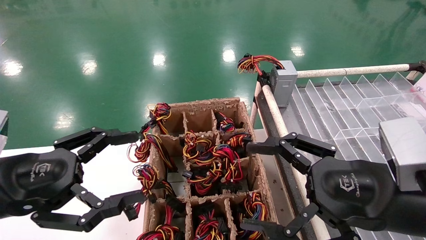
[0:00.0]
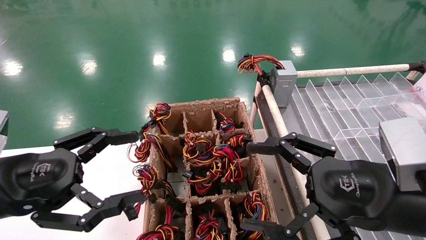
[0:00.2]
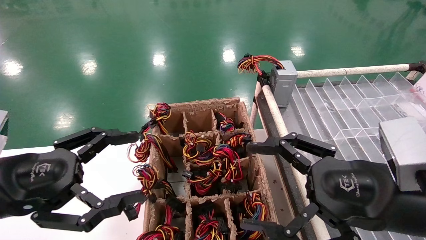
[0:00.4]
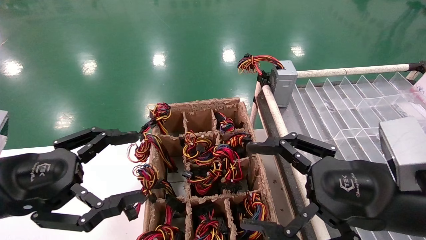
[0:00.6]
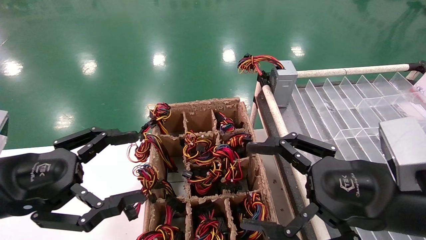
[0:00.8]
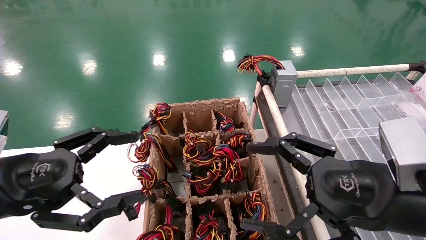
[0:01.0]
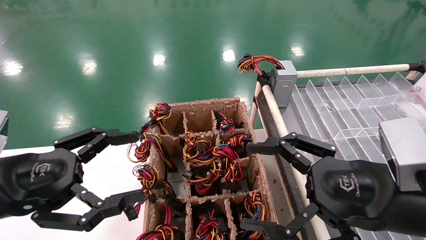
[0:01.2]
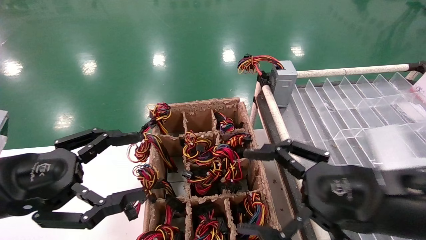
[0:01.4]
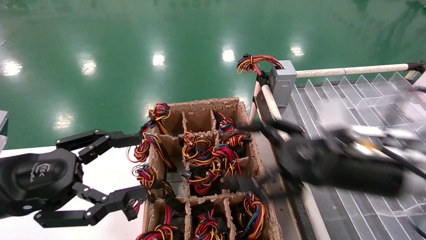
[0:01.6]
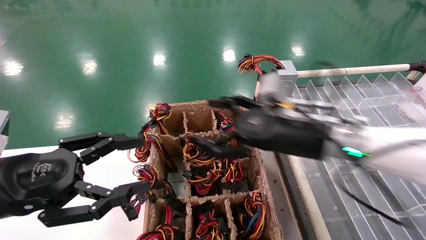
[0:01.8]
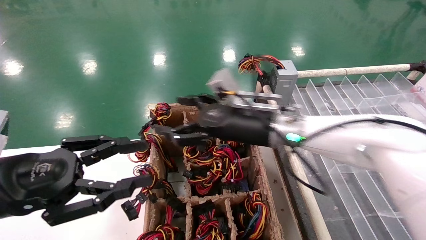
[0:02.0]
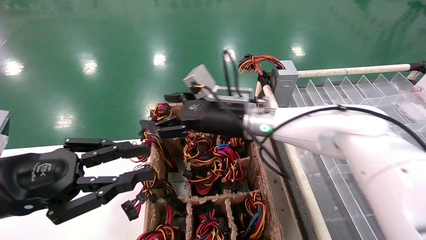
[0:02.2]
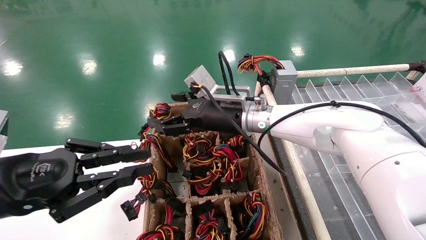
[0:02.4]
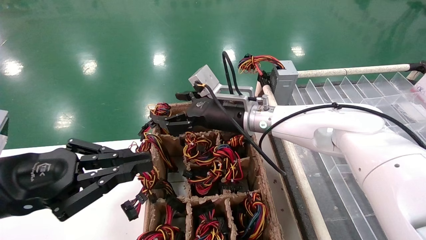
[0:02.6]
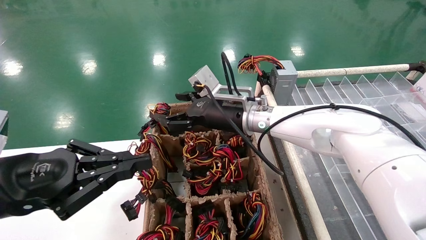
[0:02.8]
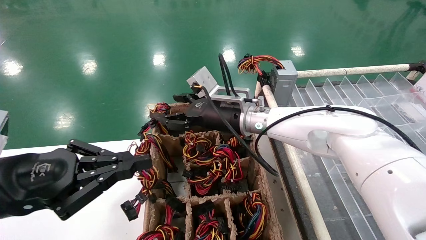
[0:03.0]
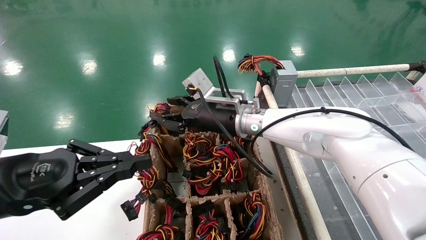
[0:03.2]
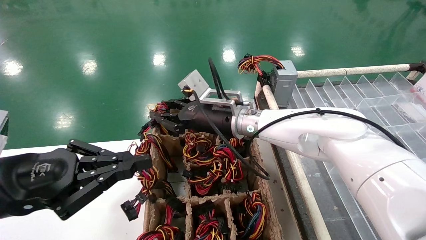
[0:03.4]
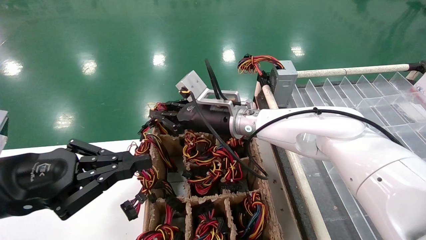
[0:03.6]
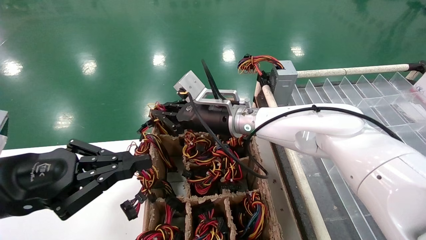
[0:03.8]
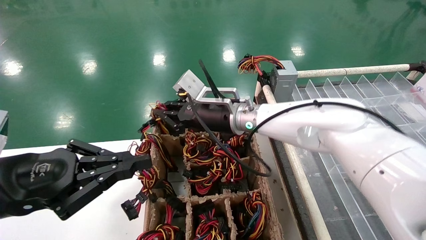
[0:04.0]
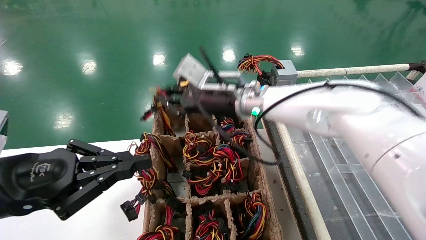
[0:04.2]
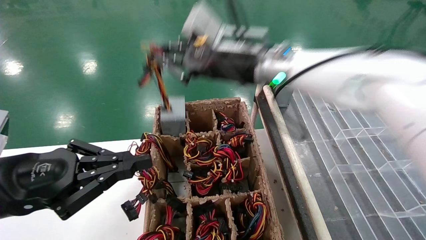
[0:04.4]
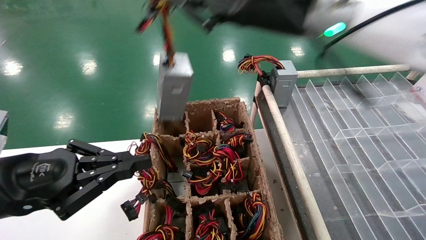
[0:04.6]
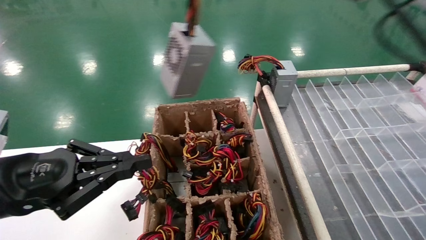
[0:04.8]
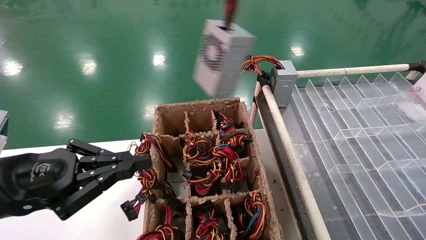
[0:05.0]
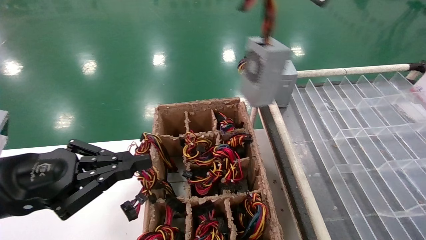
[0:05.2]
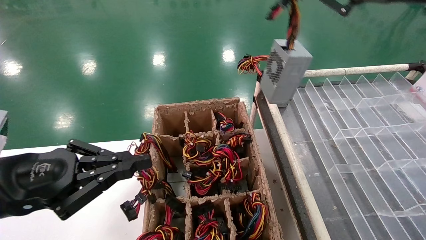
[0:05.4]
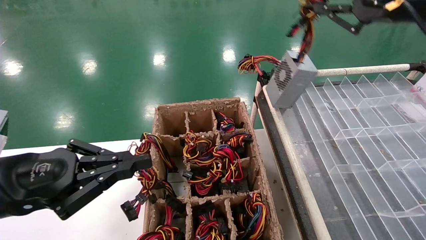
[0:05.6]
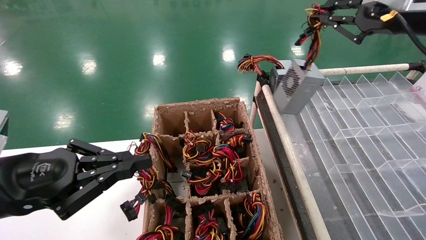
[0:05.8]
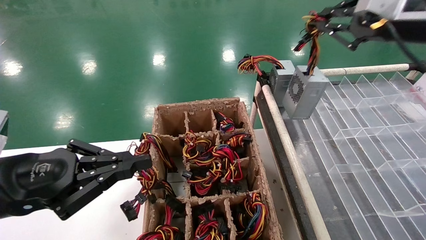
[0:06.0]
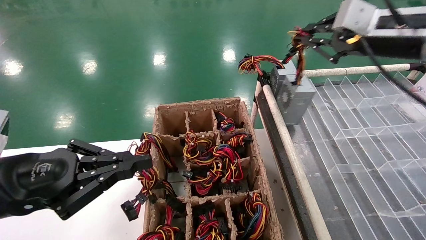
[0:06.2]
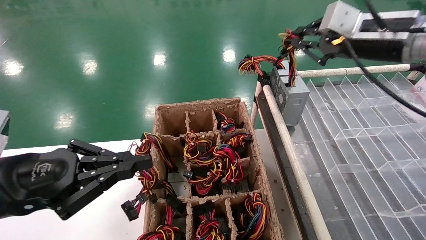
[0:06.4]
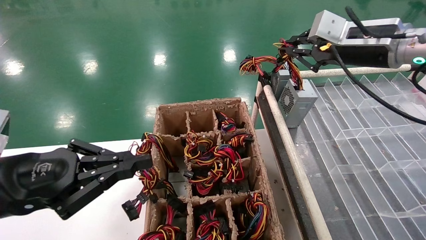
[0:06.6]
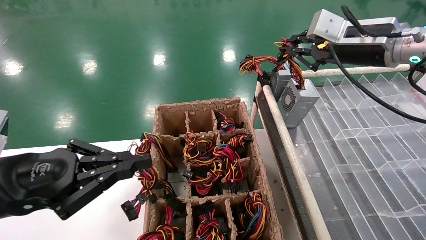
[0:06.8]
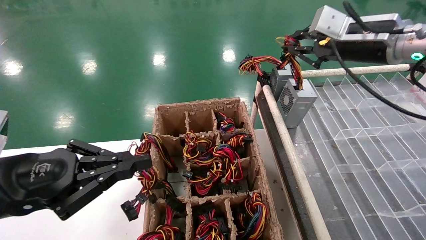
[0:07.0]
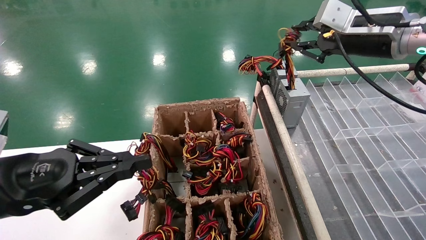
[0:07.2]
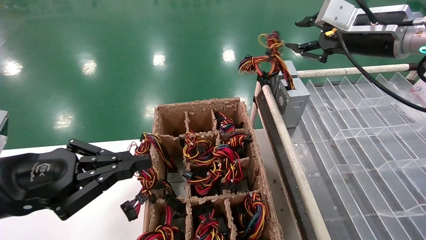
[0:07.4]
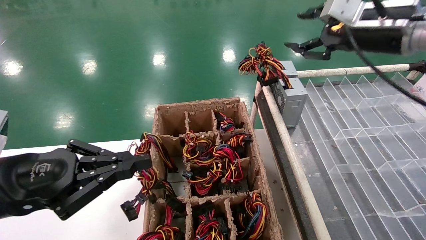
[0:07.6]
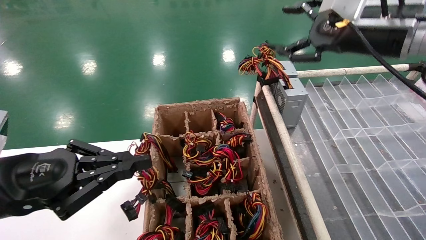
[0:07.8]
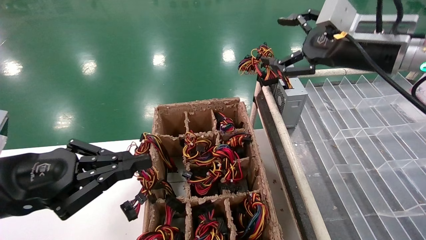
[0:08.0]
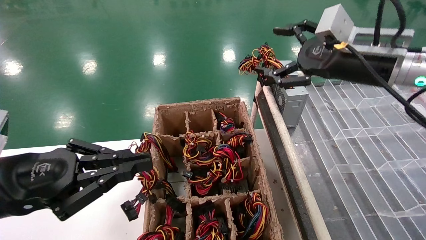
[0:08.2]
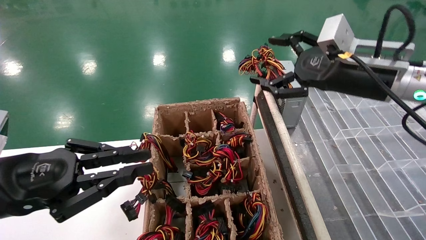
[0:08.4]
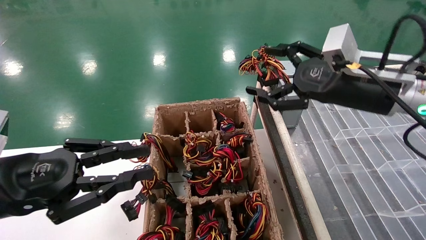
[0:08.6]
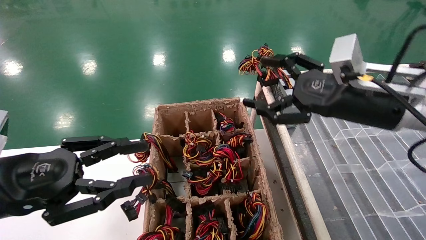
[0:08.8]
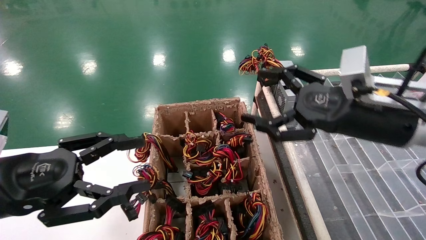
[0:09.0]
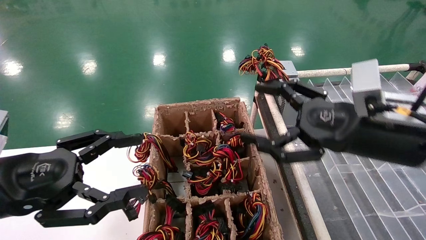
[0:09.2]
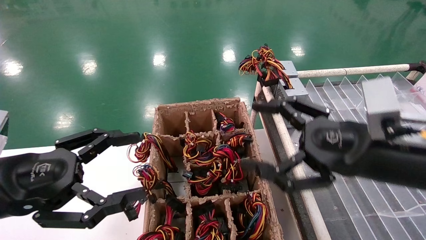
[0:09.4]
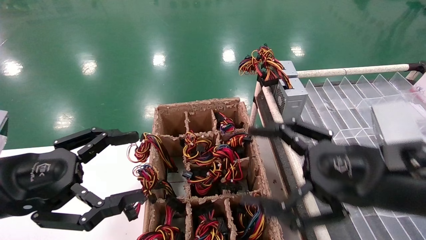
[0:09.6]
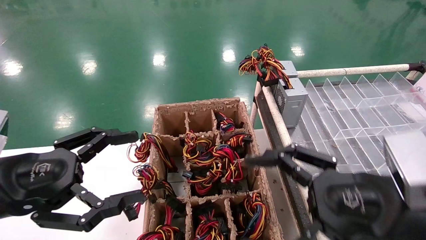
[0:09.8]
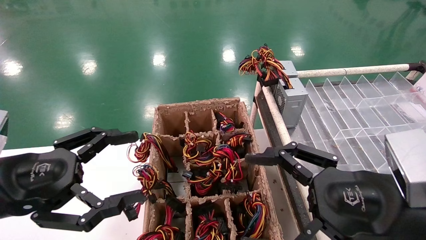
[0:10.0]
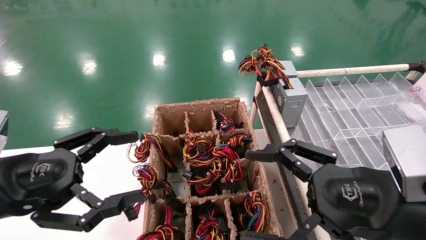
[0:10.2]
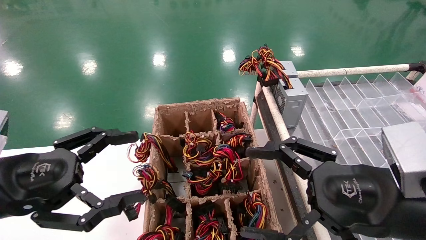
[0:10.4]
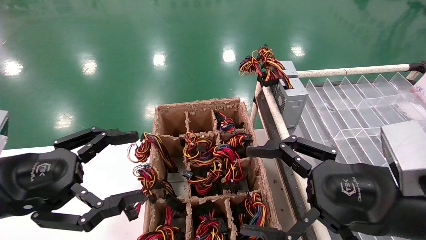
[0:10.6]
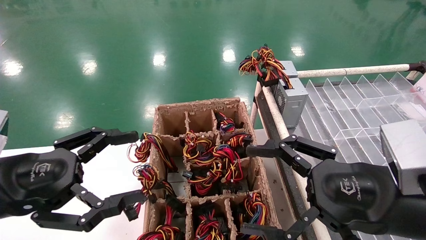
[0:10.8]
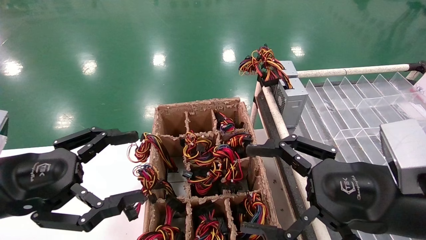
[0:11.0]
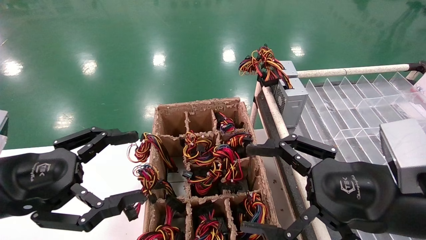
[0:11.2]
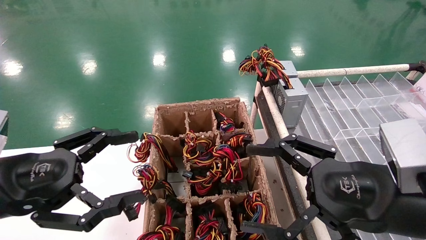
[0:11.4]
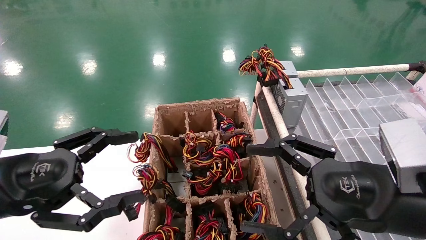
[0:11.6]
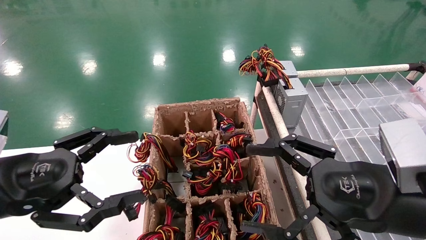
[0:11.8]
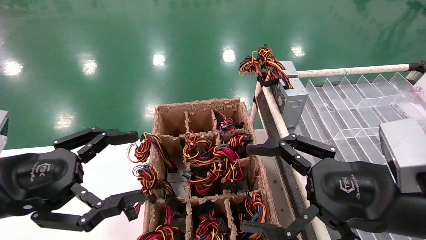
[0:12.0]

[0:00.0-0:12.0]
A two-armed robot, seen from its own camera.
Step, 0:01.8 to 0:04.0: Grab the main unit power supply from the containment box.
Step, 0:04.2 to 0:07.6: Place the main unit power supply in the designated area.
0:00.0 to 0:01.6: The right gripper moves forward, approximately 10 cm.
0:01.6 to 0:03.0: The right gripper heads to the left and forward, covering some 20 cm. The left gripper closes.
0:03.0 to 0:04.4: The right gripper shifts approximately 15 cm upward and backward, and closes up.
0:04.4 to 0:06.0: The right gripper is displaced to the right by roughly 25 cm.
0:06.0 to 0:07.6: The right gripper opens its fingers.
0:07.6 to 0:09.0: The left gripper opens. Meanwhile the right gripper moves downward and backward, roughly 15 cm, and opens its fingers.
0:09.0 to 0:10.4: The right gripper travels backward and downward by some 10 cm; the left gripper opens up.
0:10.4 to 0:12.0: Both grippers stay about where they are.

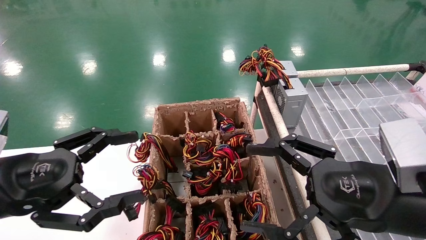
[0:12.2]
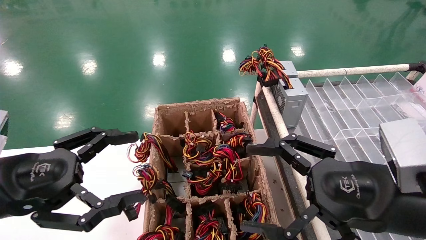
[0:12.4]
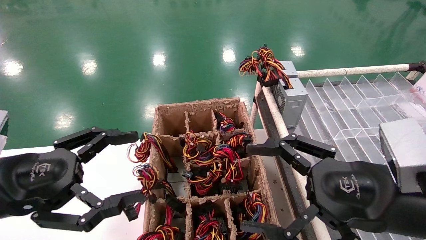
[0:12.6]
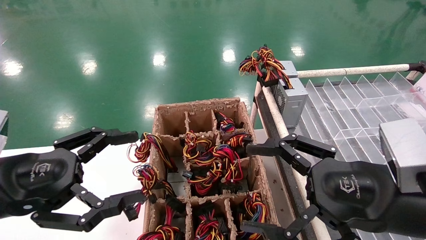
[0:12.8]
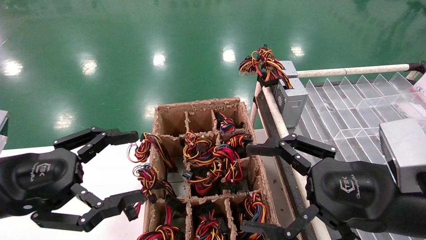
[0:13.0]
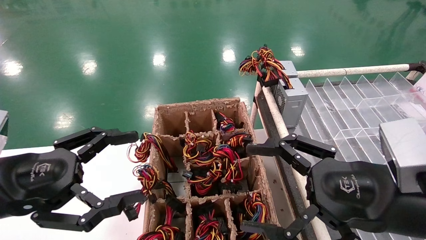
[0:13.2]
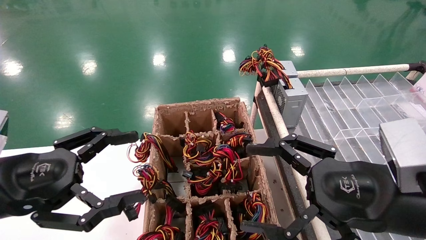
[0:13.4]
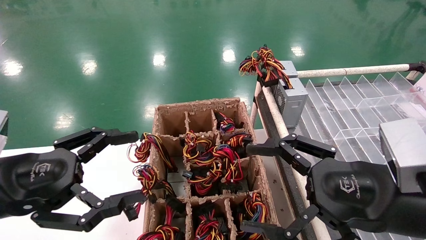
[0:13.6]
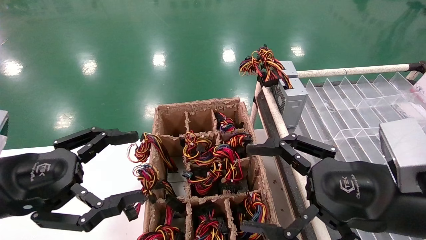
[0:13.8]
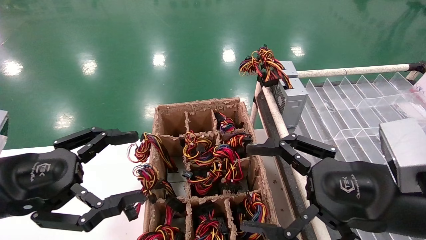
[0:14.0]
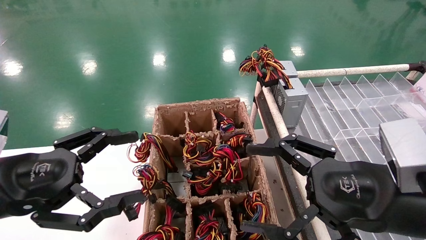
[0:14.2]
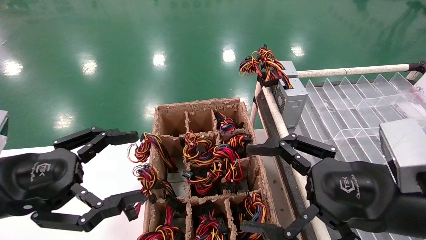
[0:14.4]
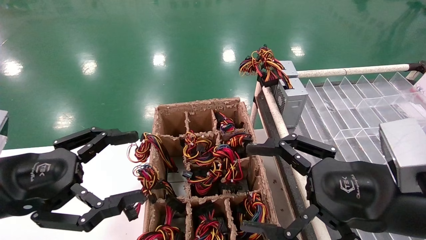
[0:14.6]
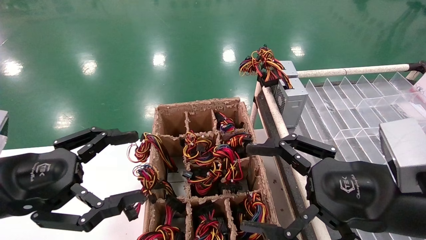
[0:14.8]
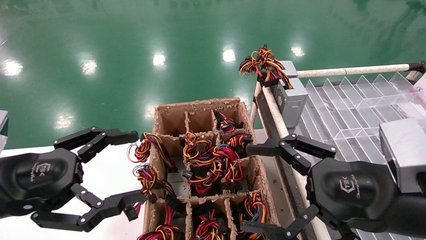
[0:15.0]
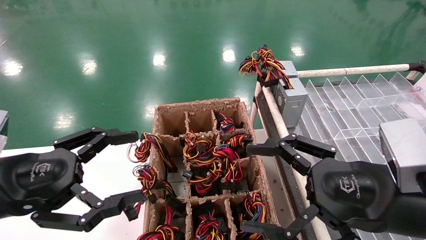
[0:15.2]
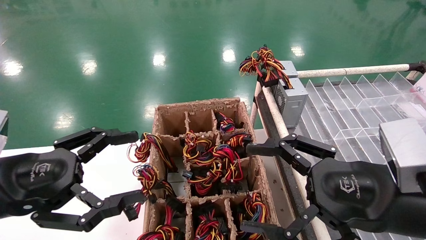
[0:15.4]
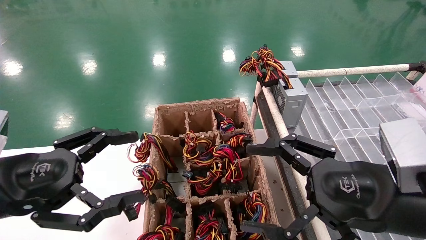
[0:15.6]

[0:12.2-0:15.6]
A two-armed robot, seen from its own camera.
0:12.2 to 0:15.6: Neither gripper changes place.

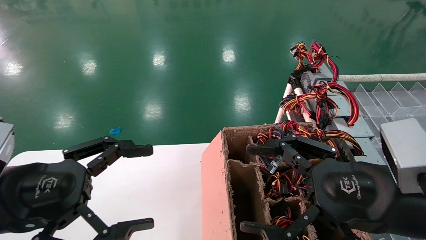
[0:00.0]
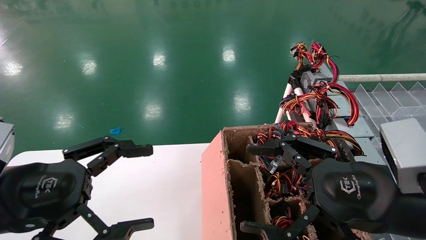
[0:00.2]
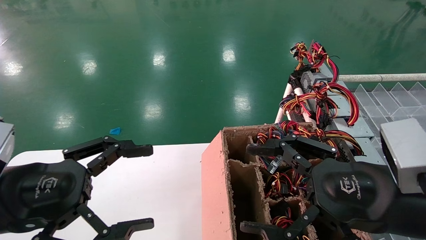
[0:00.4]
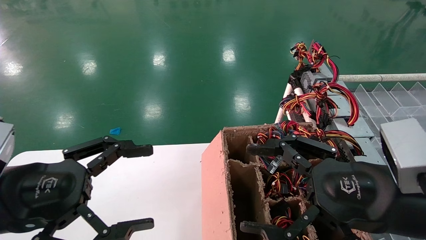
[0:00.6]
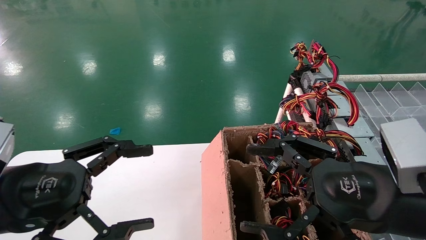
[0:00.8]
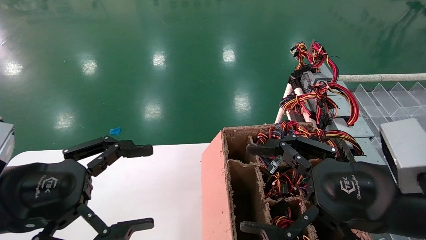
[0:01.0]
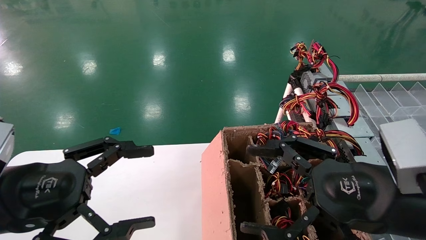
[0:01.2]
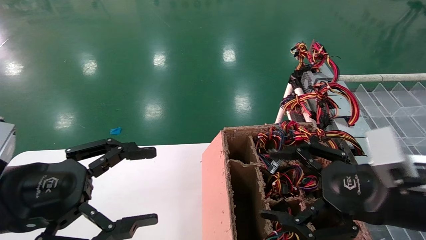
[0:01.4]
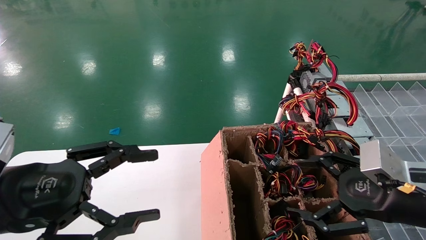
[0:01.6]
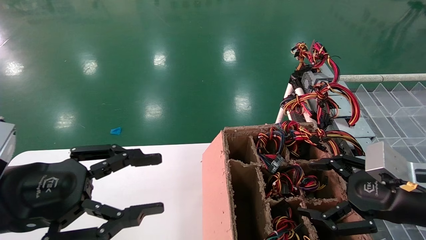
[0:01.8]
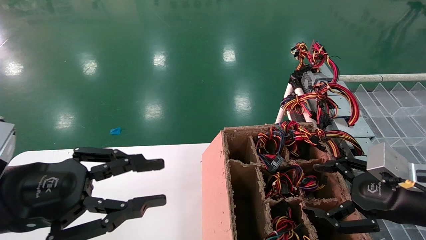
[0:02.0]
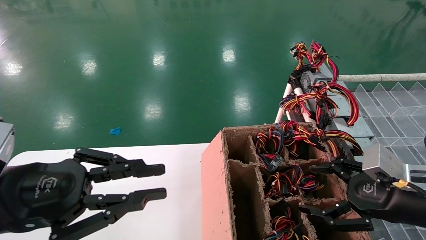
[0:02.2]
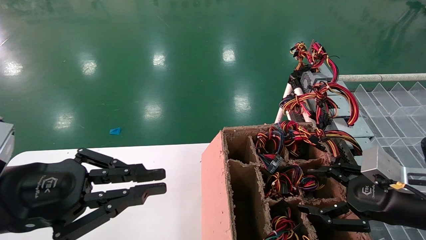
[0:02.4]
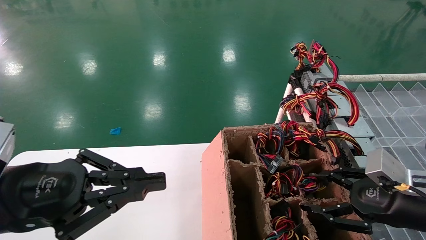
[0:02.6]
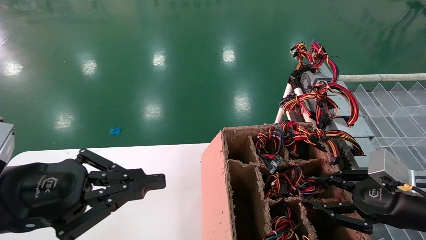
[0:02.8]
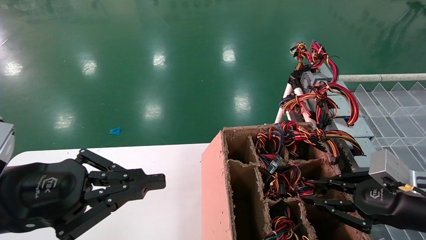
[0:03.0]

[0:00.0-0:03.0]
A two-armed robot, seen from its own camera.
0:00.0 to 0:01.6: The right gripper travels to the right by approximately 5 cm.
0:01.6 to 0:03.0: The left gripper closes its fingers; the right gripper moves some 5 cm, and closes up.
